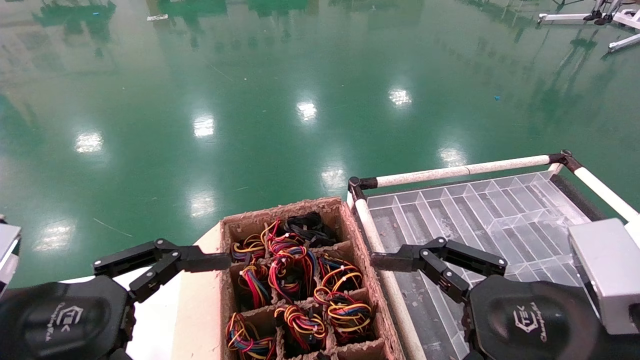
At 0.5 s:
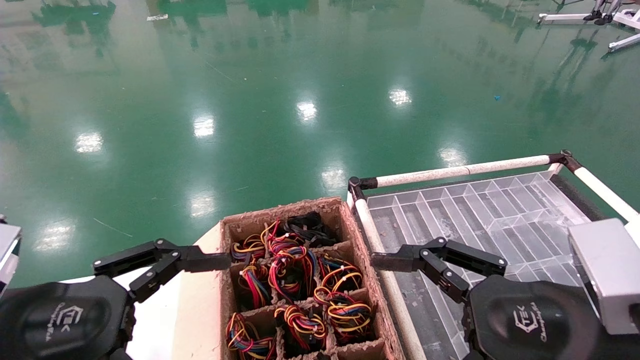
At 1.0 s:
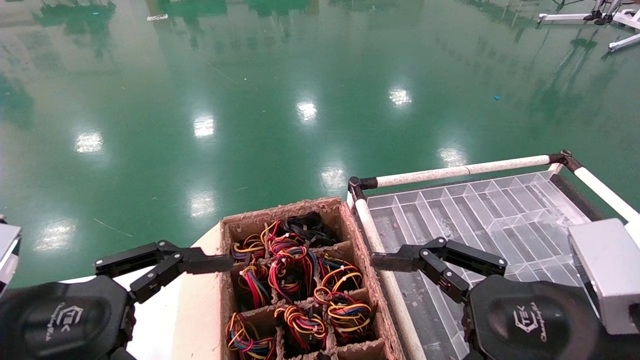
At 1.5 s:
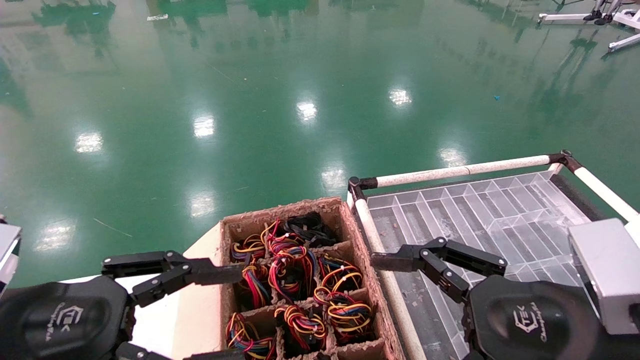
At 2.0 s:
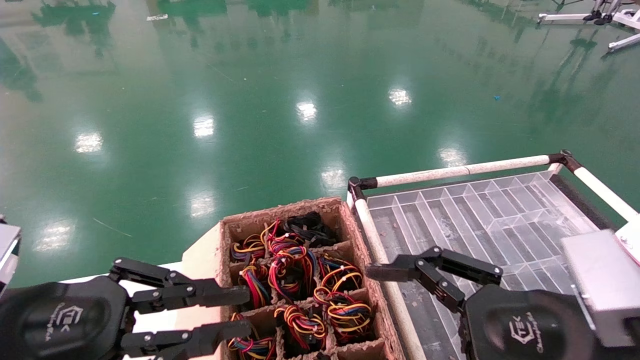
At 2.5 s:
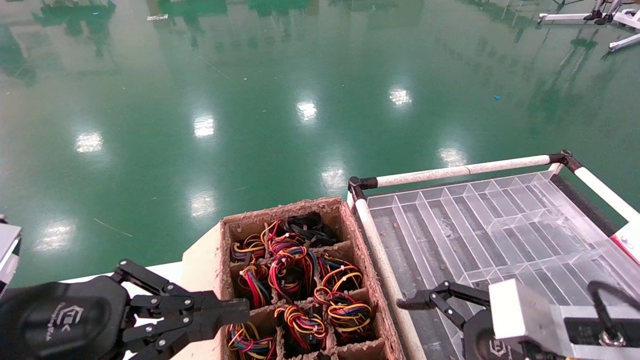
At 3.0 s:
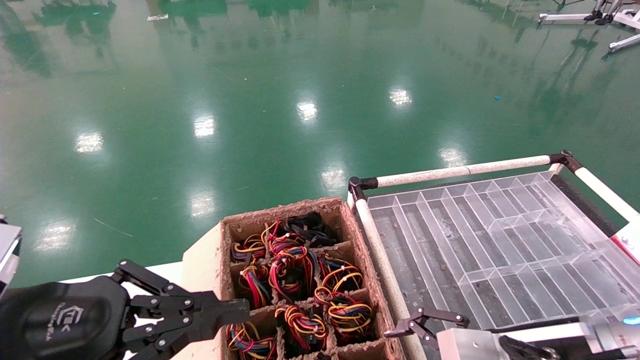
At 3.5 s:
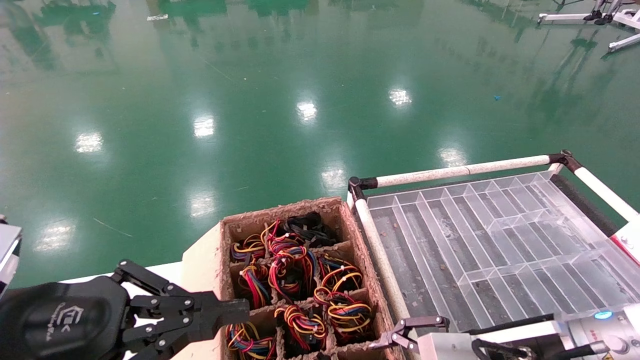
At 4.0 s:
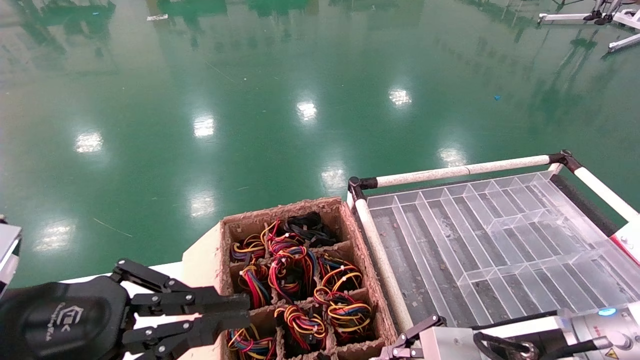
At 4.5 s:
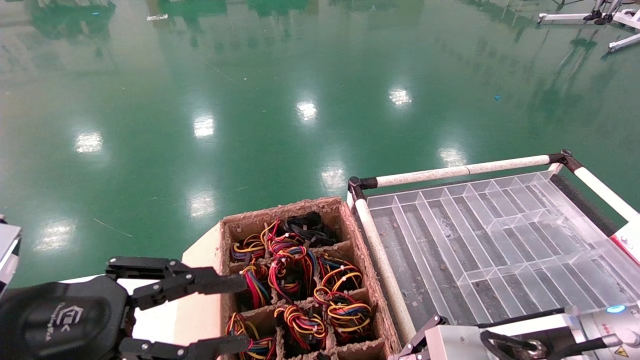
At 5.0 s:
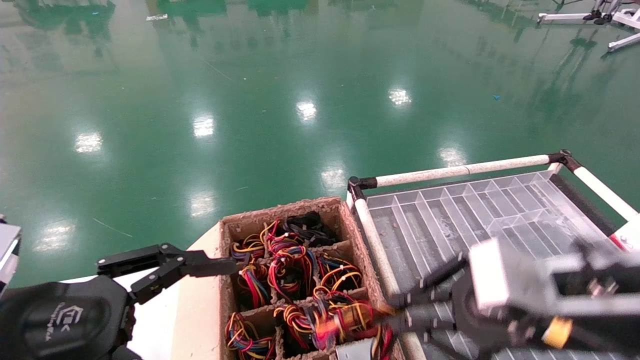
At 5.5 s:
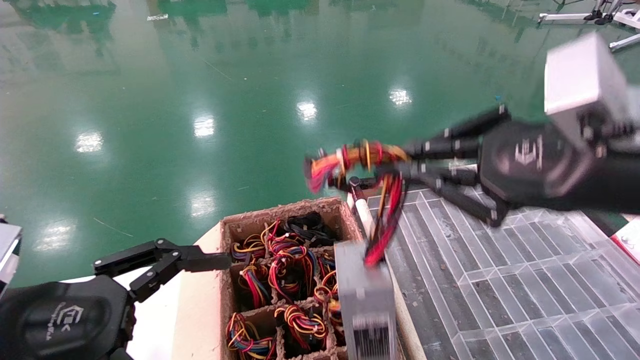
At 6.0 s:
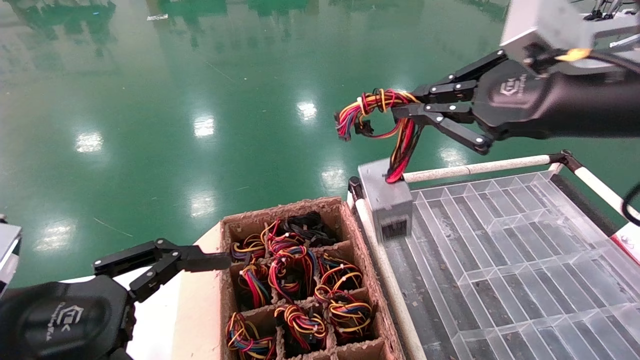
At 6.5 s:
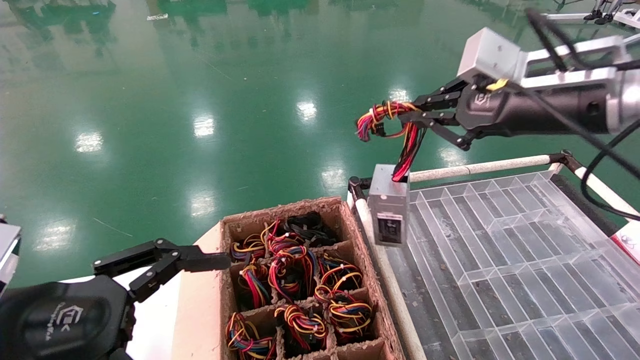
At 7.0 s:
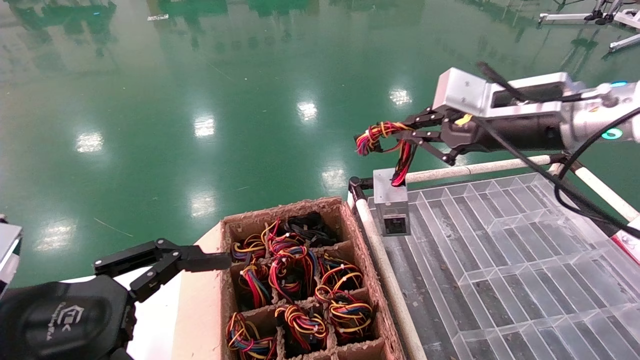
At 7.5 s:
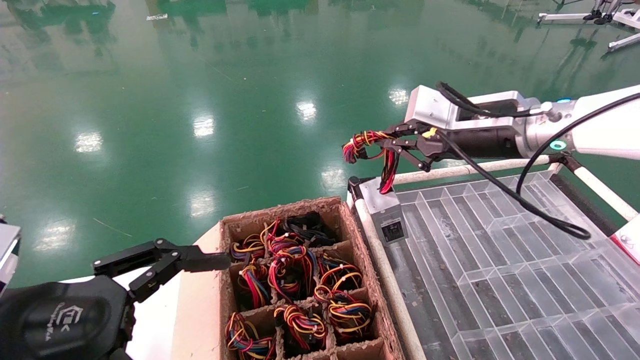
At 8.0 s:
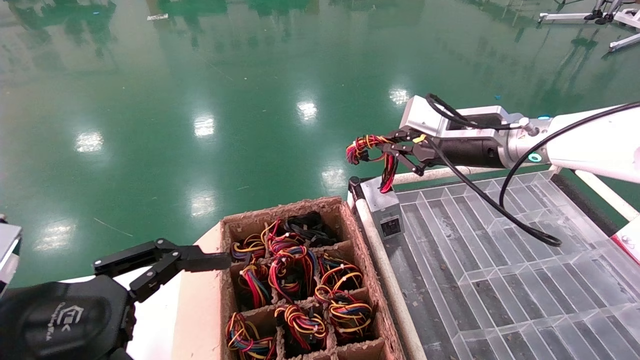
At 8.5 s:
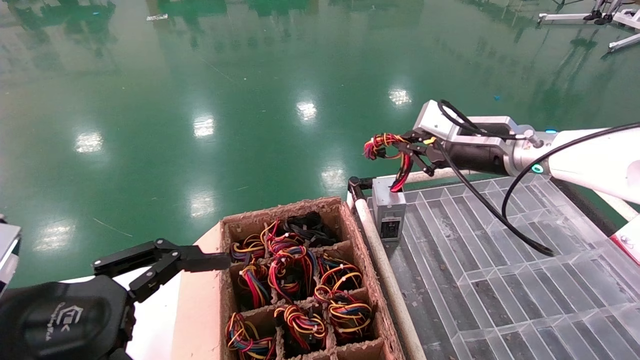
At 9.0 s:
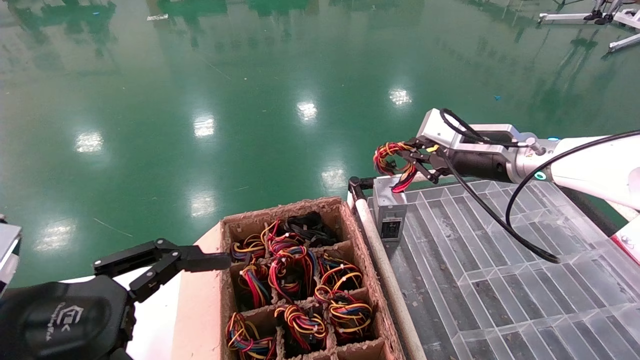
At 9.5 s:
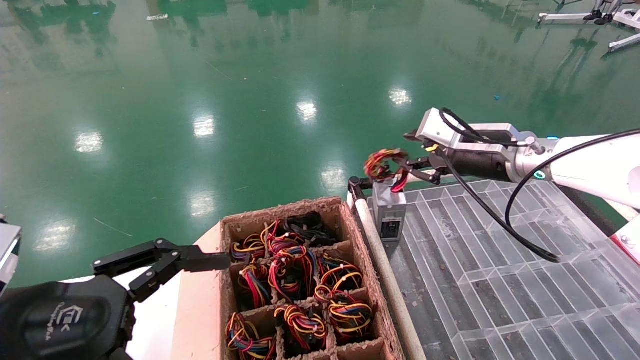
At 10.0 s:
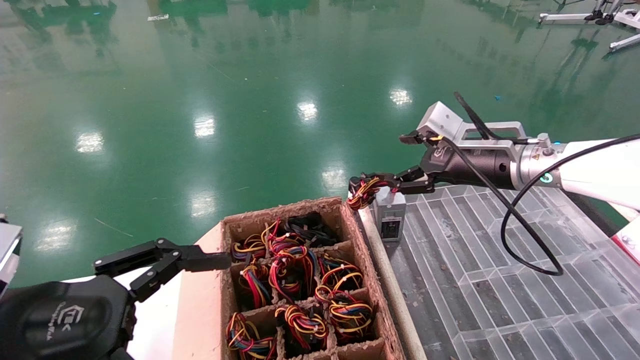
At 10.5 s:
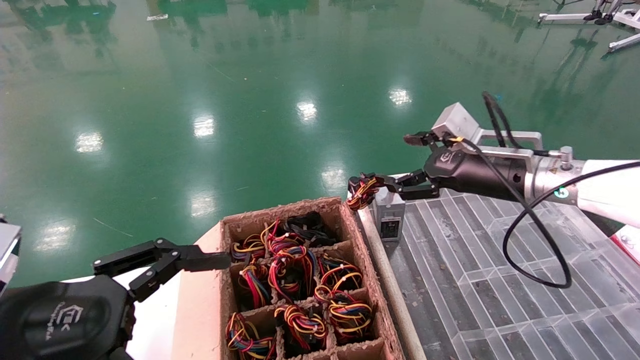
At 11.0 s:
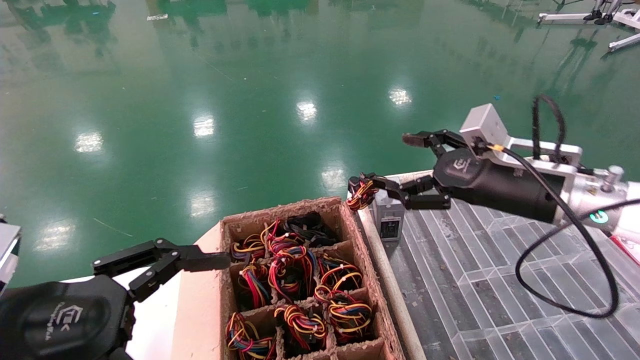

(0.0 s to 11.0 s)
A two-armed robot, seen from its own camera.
Step, 2.5 s - 4.5 s: Grab and lift the power supply from the large box.
Step, 5.0 s - 9.0 s: Place the power supply on the operating table.
0.0 s - 2.0 s: The left gripper closes its fingers.
2.0 s - 3.5 s: The right gripper heads forward and downward, covering approximately 10 cm.
3.5 s - 5.5 s: The right gripper moves upward, some 20 cm, and closes, while the left gripper opens.
5.5 s - 7.5 s: The right gripper shifts about 20 cm forward.
7.5 s - 9.0 s: The right gripper heads forward and downward, covering about 5 cm.
9.0 s - 11.0 s: The right gripper is displaced backward by roughly 10 cm, and opens up.

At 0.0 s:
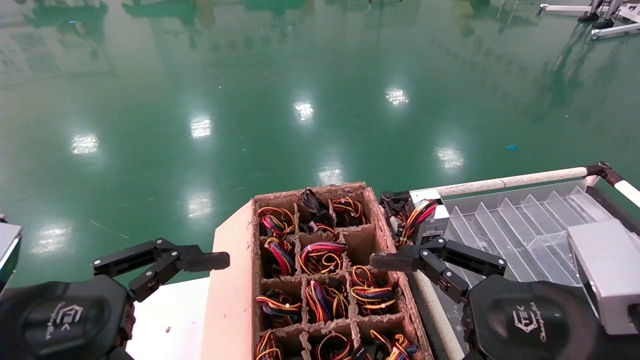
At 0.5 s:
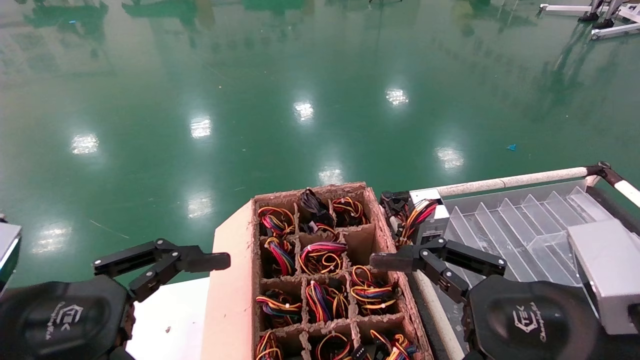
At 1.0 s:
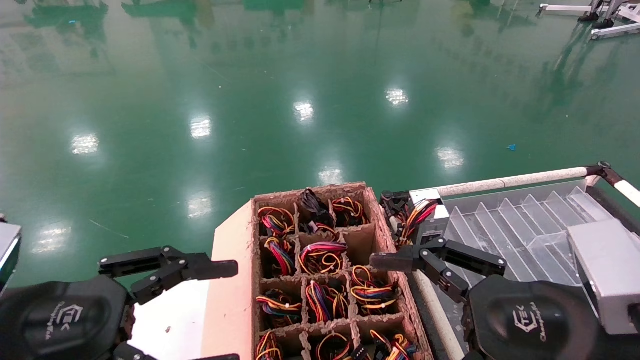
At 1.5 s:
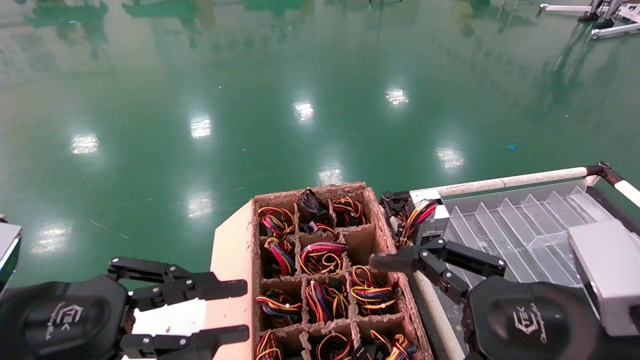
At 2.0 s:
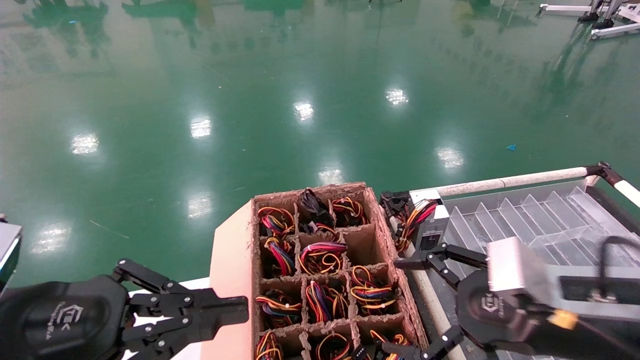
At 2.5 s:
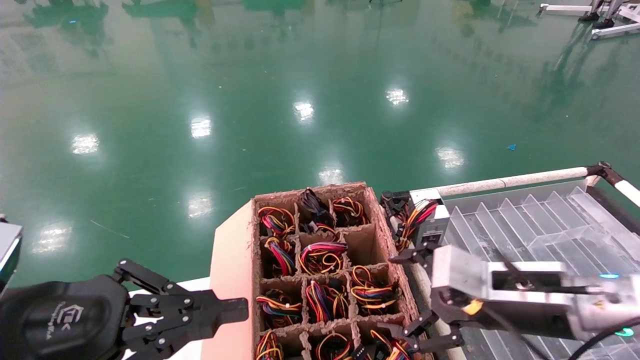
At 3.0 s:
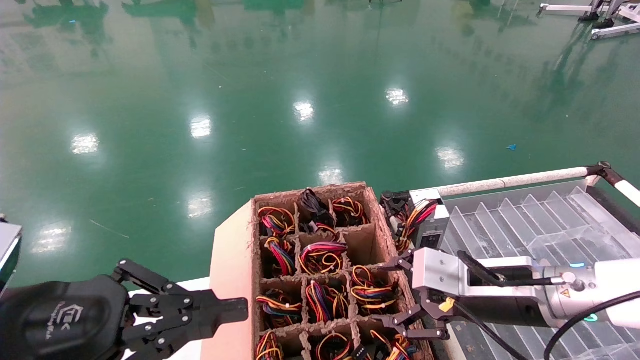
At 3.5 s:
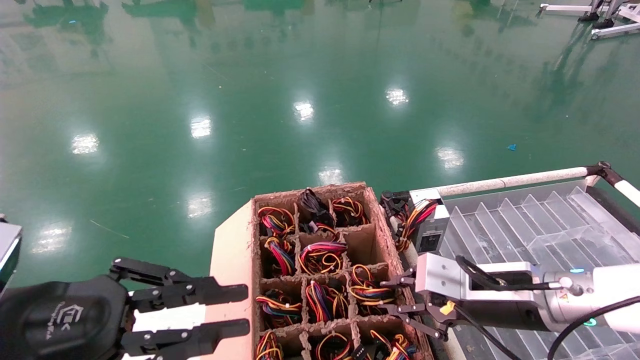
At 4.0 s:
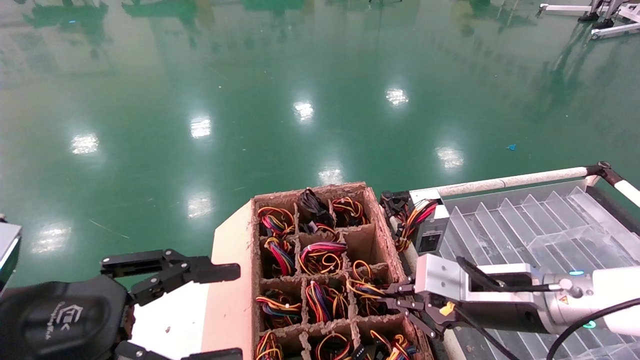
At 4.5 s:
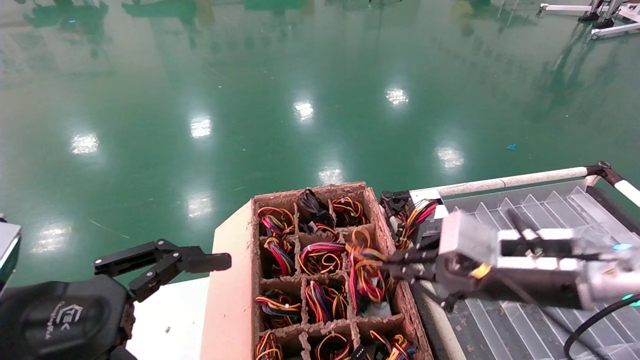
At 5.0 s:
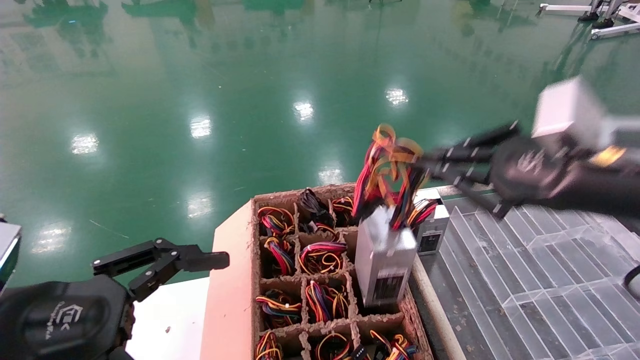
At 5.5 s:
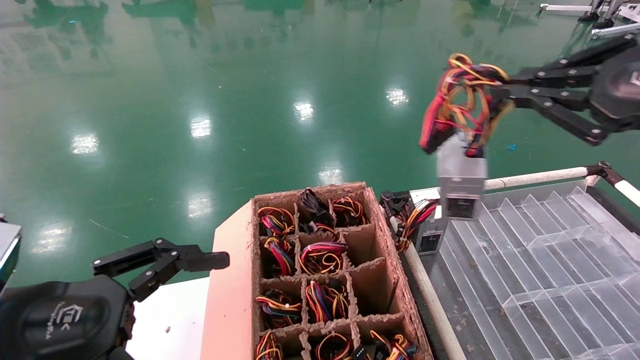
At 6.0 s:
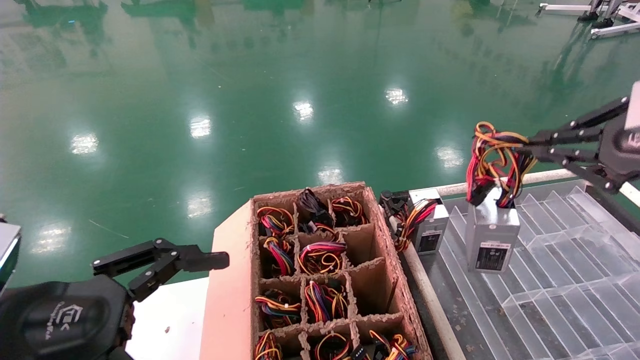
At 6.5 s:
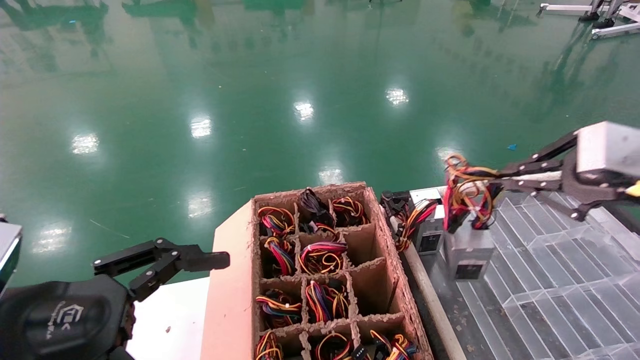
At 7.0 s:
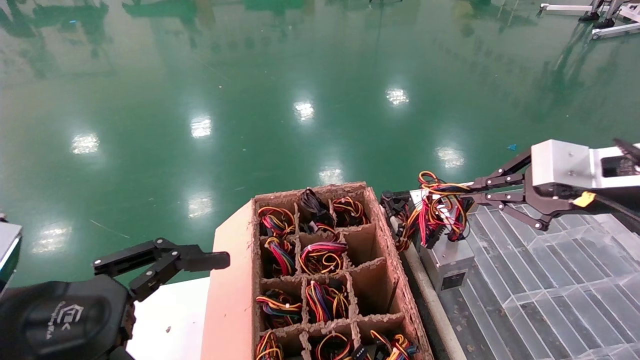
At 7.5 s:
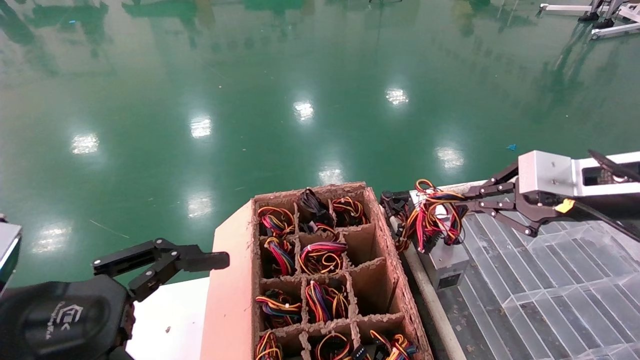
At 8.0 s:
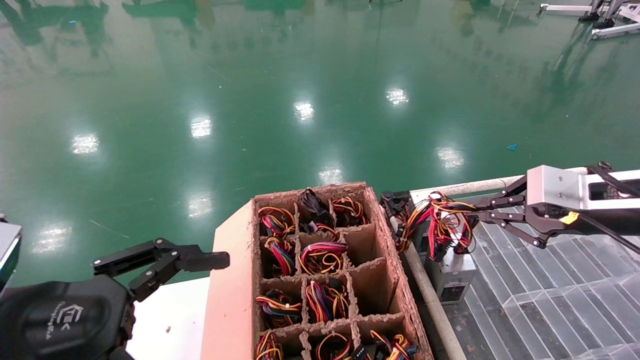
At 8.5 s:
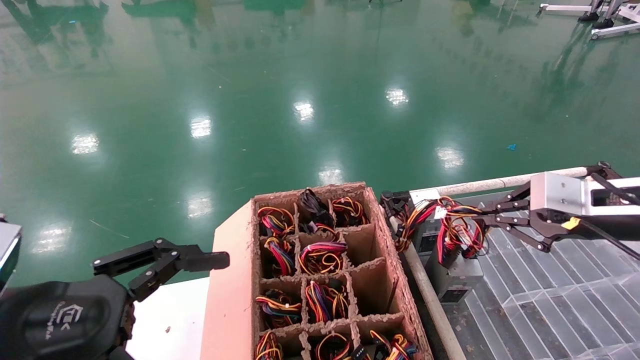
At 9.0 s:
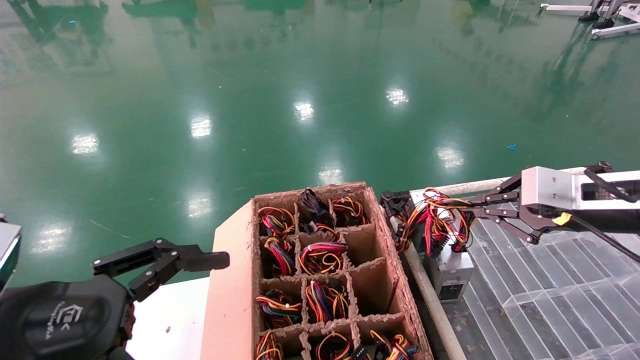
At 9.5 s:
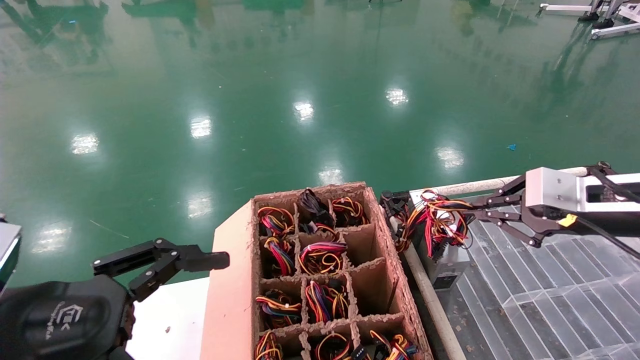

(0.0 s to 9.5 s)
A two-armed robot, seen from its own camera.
Step, 1.5 s - 3.5 s: Grab and lift the power supply from the large box.
0.0 s - 2.0 s: The right gripper shifts about 5 cm forward. Meanwhile the left gripper closes up.
2.0 s - 4.0 s: The left gripper opens, while the right gripper moves forward, some 10 cm, and closes.
4.0 s - 5.5 s: The right gripper moves upward, to the right and backward, some 25 cm, while the left gripper opens its fingers.
5.5 s - 7.5 s: The right gripper shifts approximately 10 cm forward and downward.
7.5 s - 9.5 s: The grippers move only a little.
